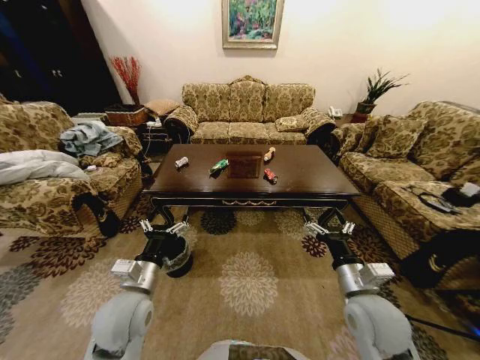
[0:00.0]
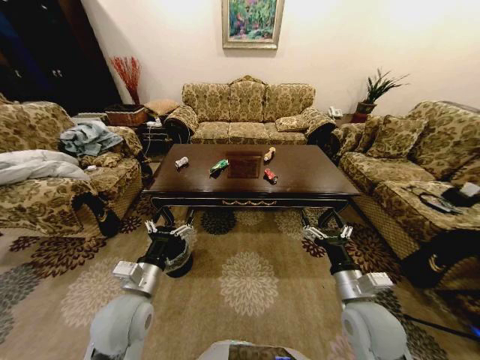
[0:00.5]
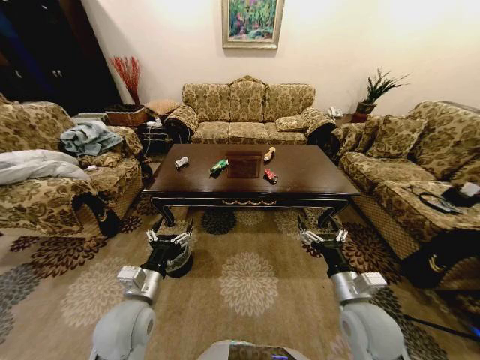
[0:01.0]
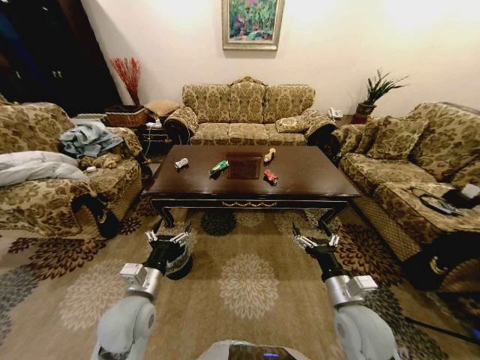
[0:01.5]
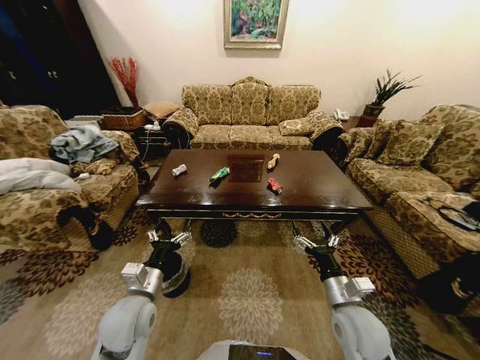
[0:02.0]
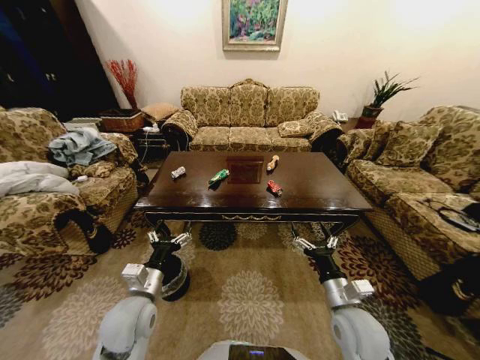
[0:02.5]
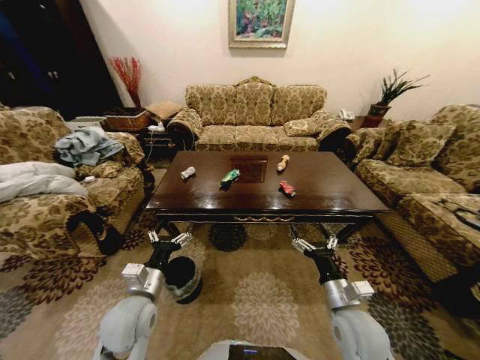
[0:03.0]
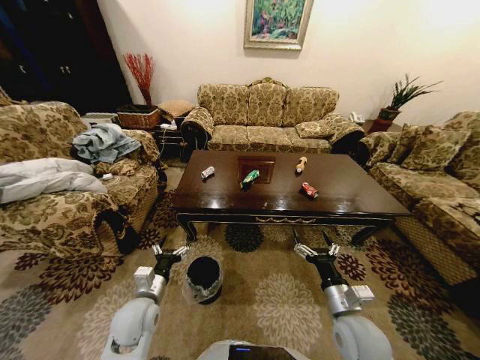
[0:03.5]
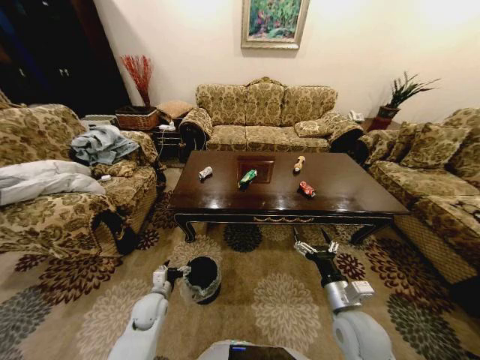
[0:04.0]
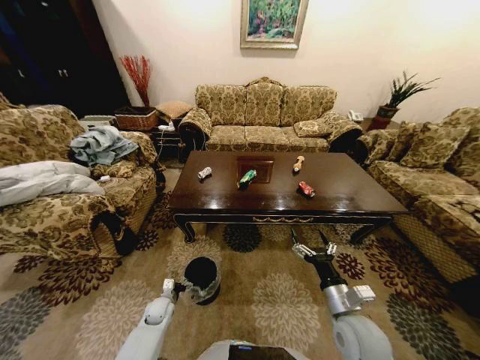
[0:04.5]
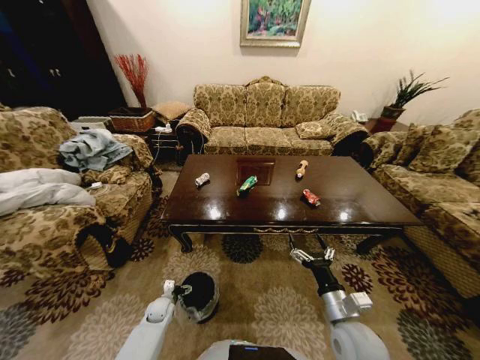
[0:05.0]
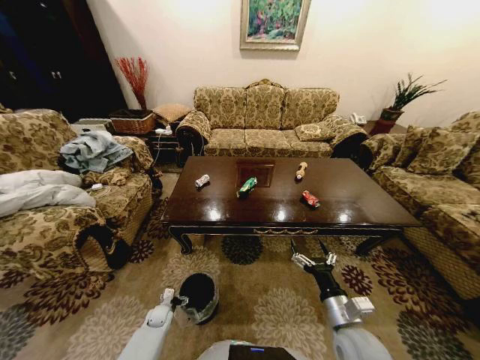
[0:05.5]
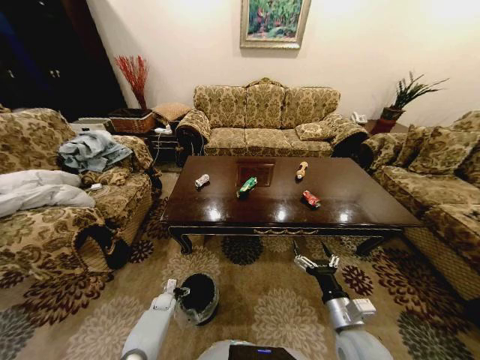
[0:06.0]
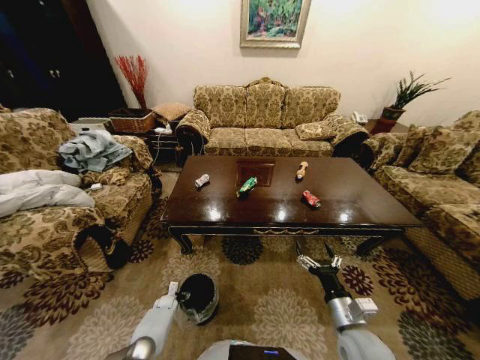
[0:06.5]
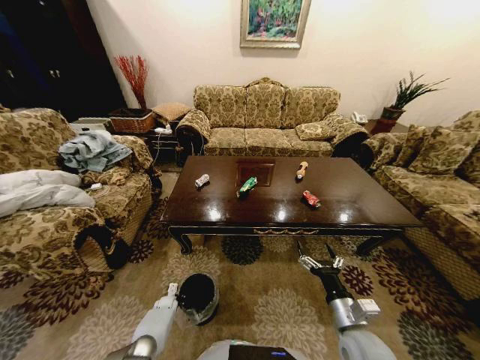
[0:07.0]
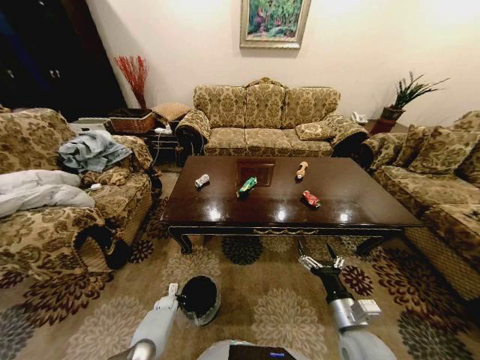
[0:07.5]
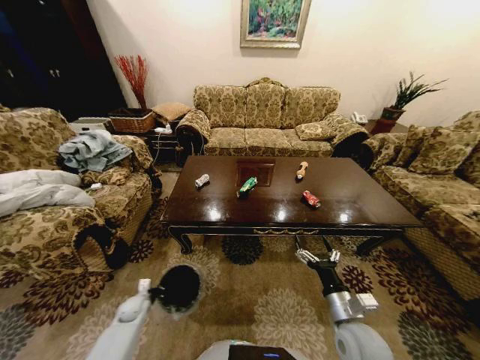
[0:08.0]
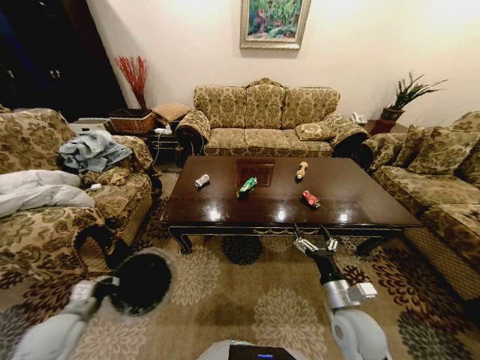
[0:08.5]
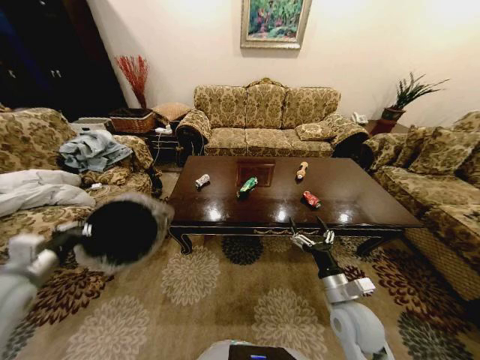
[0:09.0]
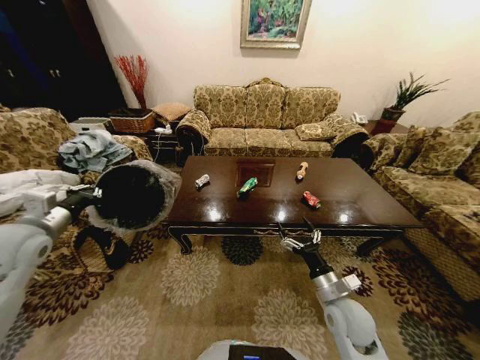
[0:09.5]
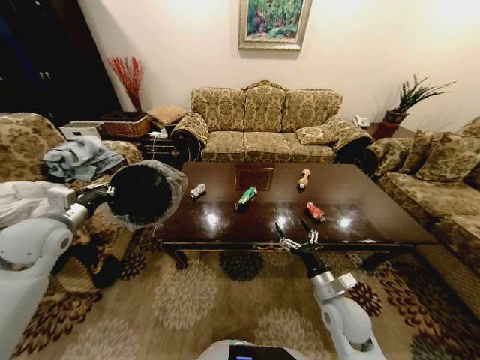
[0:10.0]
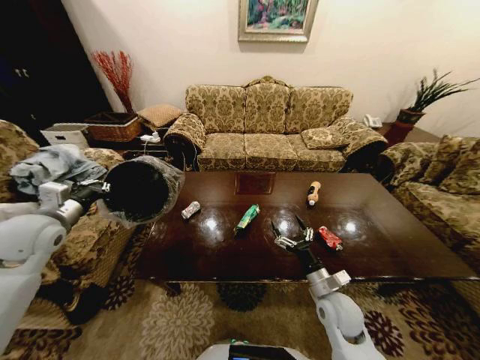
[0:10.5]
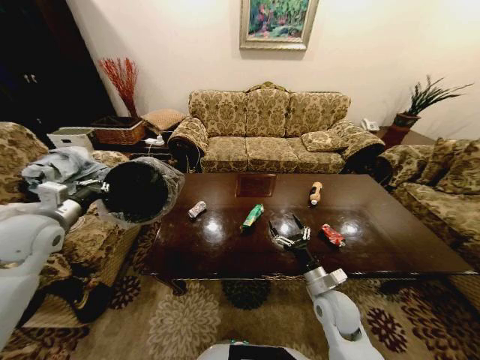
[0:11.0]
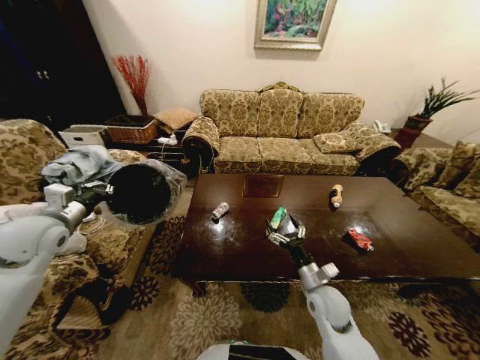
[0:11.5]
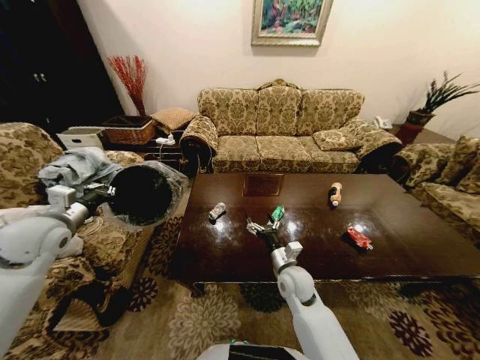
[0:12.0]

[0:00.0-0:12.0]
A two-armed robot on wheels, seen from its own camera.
Task of the whole recording: Move to the front of the table and place the trash on the table into the trash bin.
0:02.0 to 0:04.0: The left gripper goes roughly 15 cm downward.
0:04.0 to 0:06.0: The left gripper shifts approximately 20 cm downward.
0:06.0 to 0:08.0: The left gripper moves upward and to the left, approximately 15 cm, and closes its fingers.
0:08.0 to 0:10.0: The right gripper moves forward, some 5 cm. Meanwhile the left gripper is displaced upward by about 40 cm.
0:10.0 to 0:12.0: The right gripper goes some 15 cm to the left and forward.

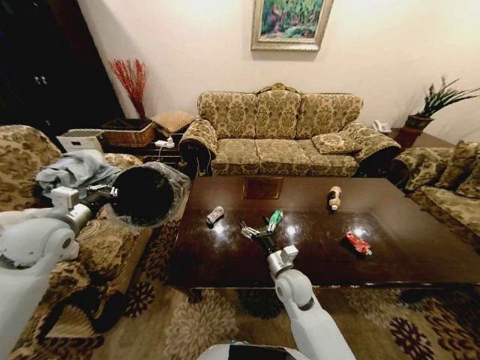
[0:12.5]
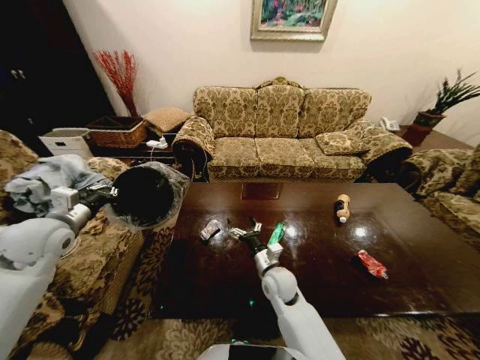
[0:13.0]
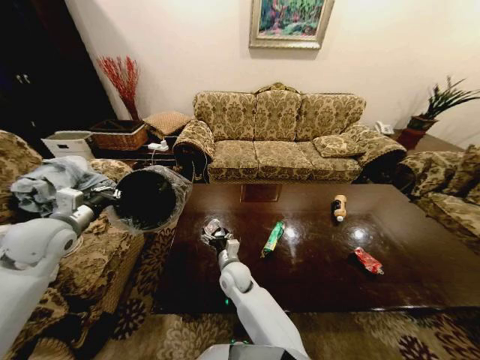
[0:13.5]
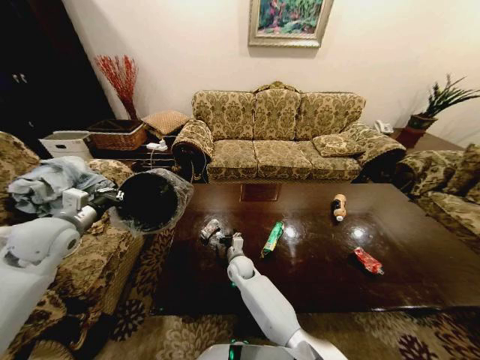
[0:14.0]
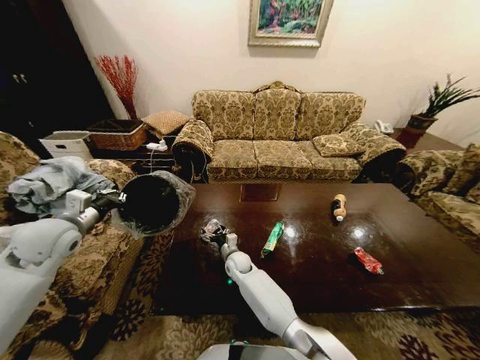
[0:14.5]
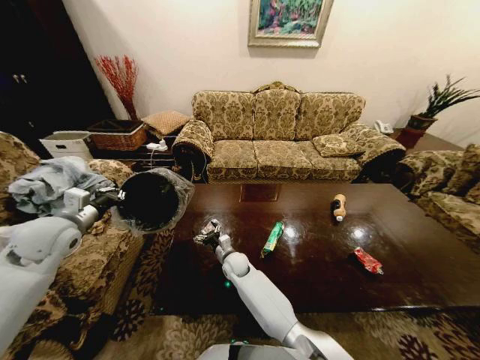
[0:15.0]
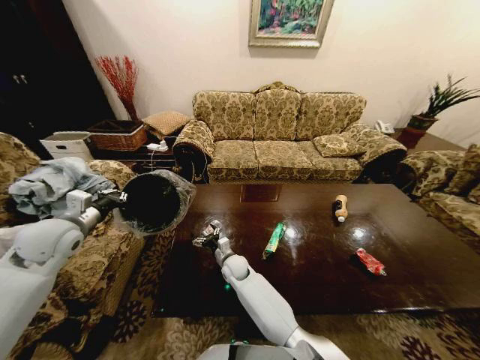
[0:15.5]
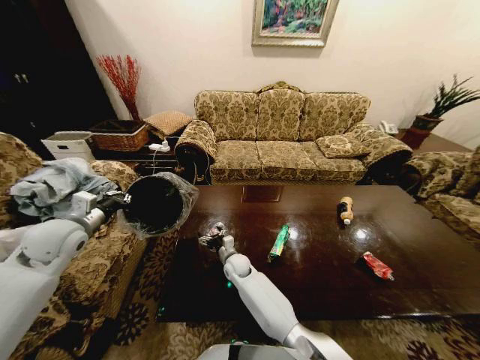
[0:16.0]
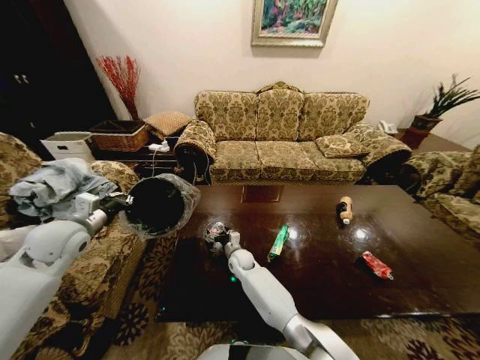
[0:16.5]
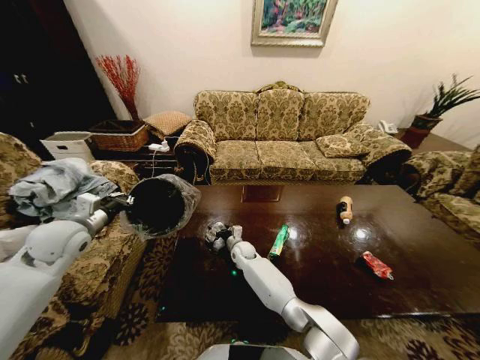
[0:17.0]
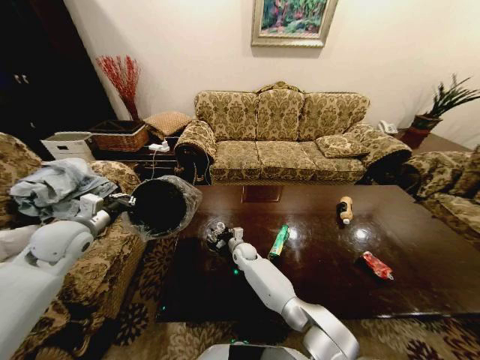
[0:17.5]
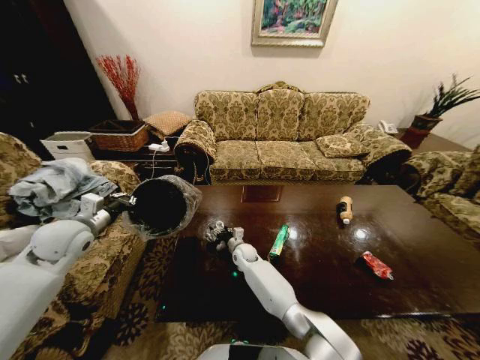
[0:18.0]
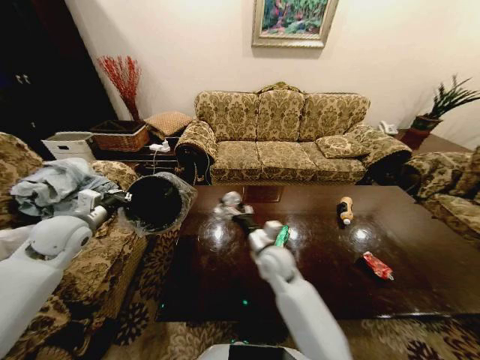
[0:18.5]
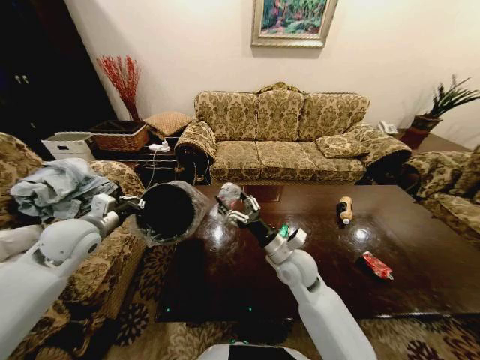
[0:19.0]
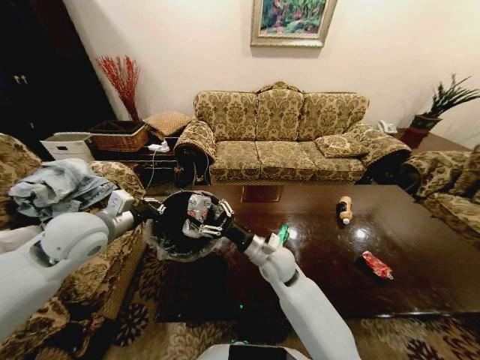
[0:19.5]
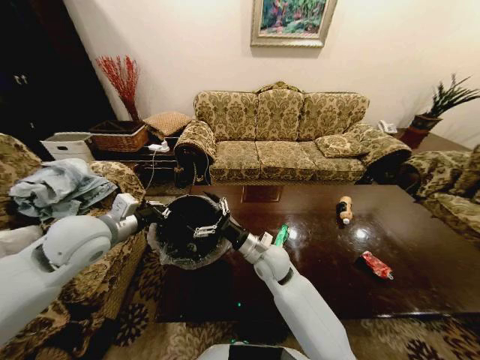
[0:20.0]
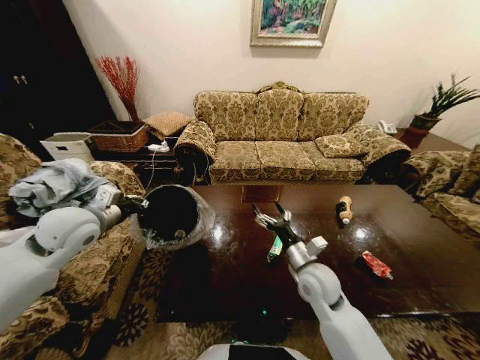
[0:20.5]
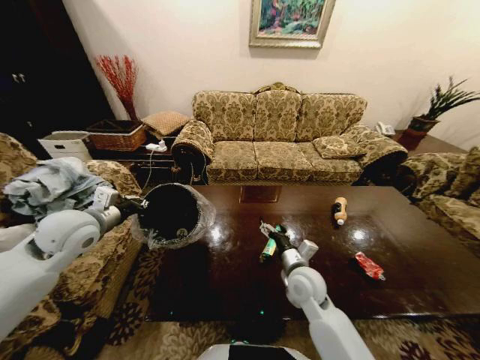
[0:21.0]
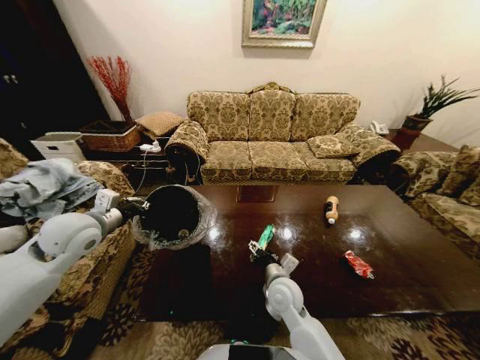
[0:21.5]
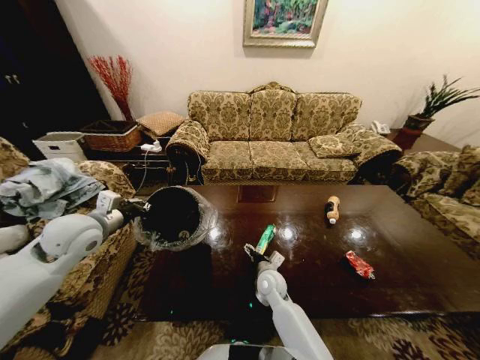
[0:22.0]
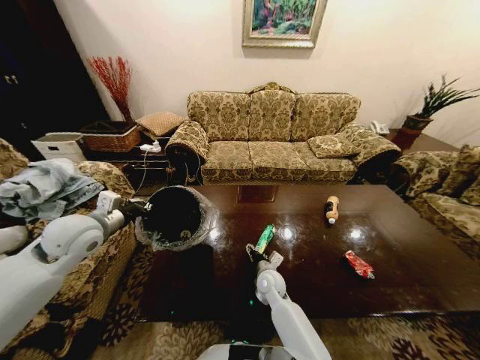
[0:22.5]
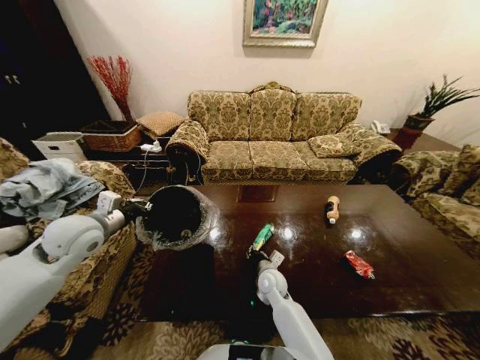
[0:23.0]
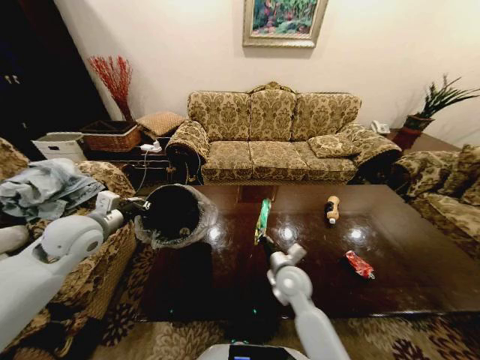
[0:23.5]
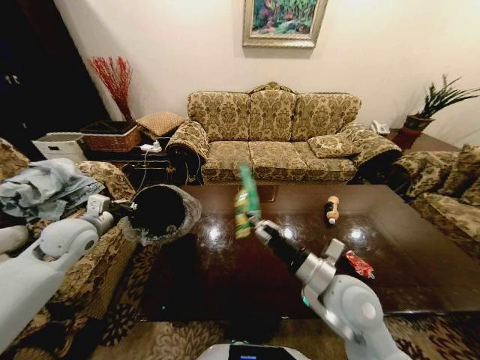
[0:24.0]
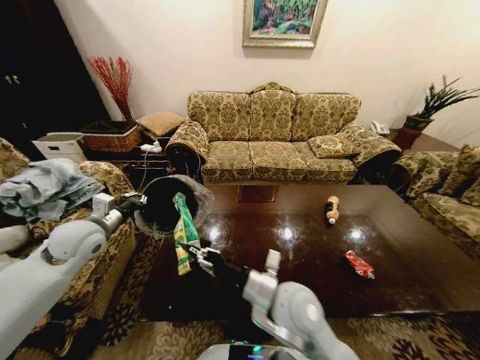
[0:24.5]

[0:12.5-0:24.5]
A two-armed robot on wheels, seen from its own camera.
Task of the whole recording: Move to the front of the table and place the trash on the table into the trash bin.
0:12.5 to 0:14.5: The right gripper is displaced to the left, forward and downward by roughly 20 cm.
0:16.5 to 0:18.5: The right gripper is displaced upward, to the right and backward by approximately 20 cm.
0:18.5 to 0:20.5: The left gripper is displaced to the right by some 5 cm. The right gripper moves left and right over some 10 cm, changing direction 2 times.
0:20.5 to 0:22.5: The right gripper moves downward and to the left, roughly 20 cm.
0:22.5 to 0:24.5: The right gripper heads upward and backward, covering about 25 cm, and closes.

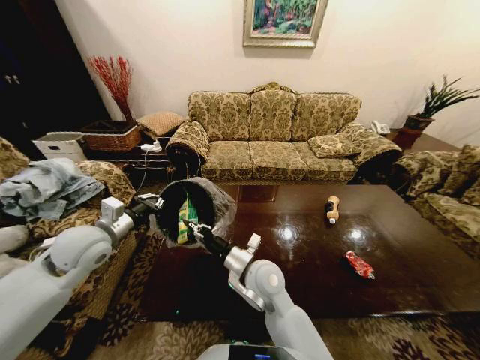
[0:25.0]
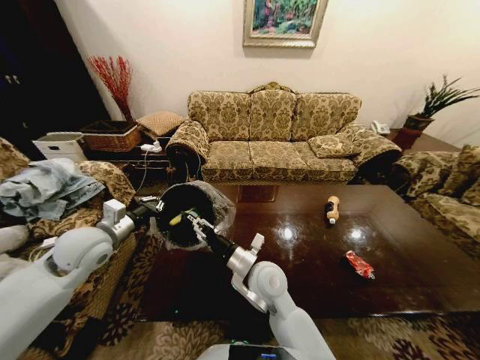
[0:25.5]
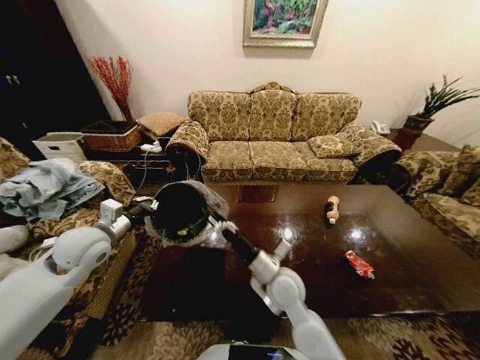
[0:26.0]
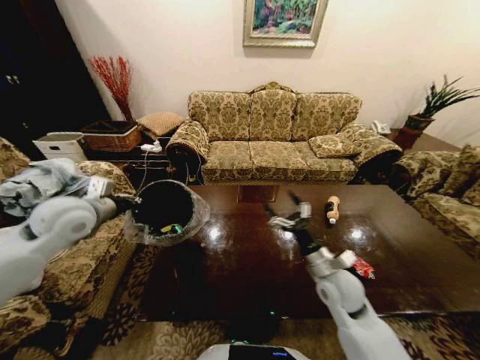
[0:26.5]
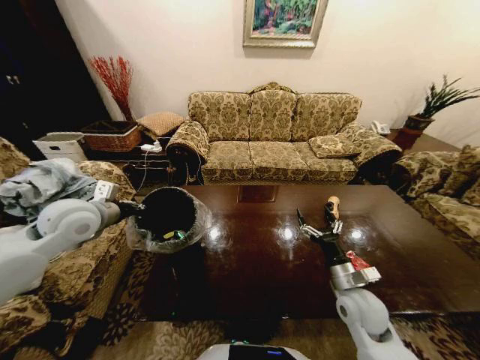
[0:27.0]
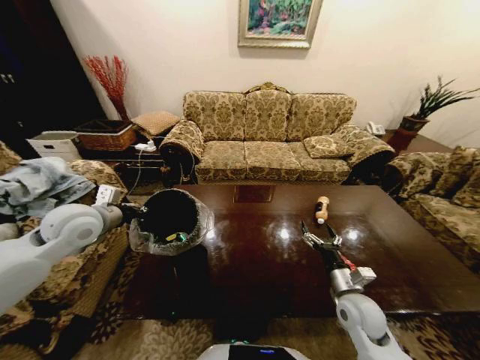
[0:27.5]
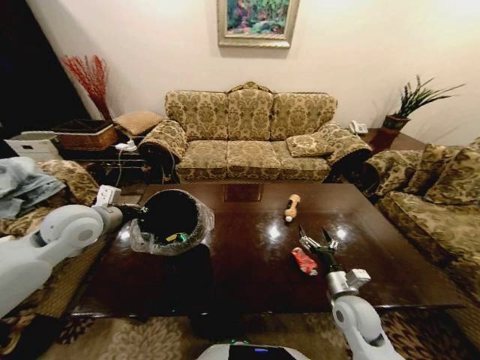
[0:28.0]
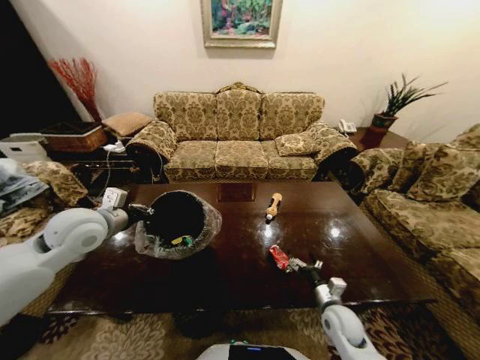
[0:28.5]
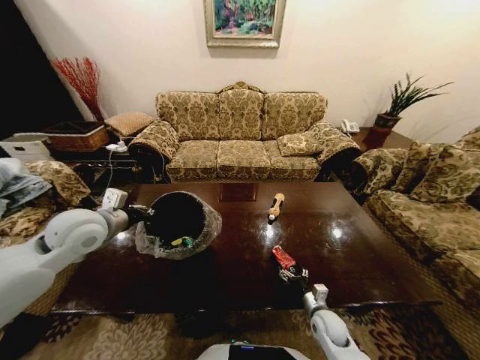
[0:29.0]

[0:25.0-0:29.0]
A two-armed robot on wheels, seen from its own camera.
Task of the whole recording: Move to the front of the table and place the trash on the table into the trash bin.
0:25.0 to 0:27.0: The right gripper goes approximately 25 cm to the right, and opens its fingers, while the left gripper shifts roughly 5 cm upward.
0:27.0 to 0:29.0: The right gripper shifts roughly 20 cm downward.
